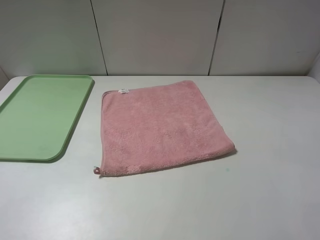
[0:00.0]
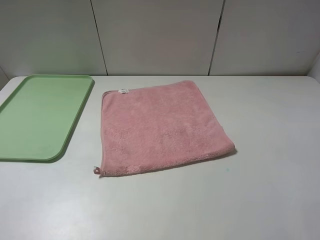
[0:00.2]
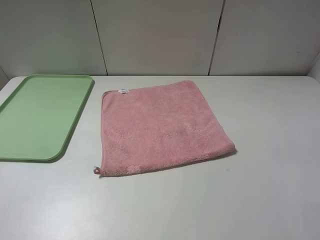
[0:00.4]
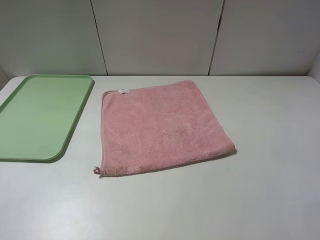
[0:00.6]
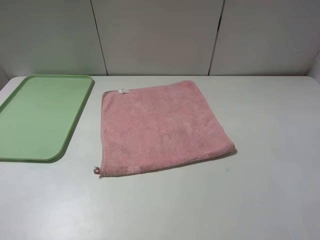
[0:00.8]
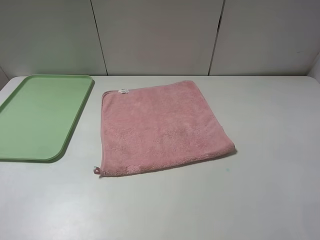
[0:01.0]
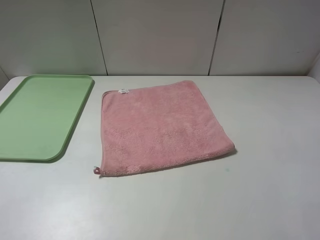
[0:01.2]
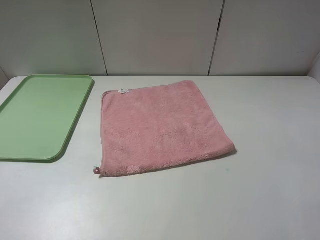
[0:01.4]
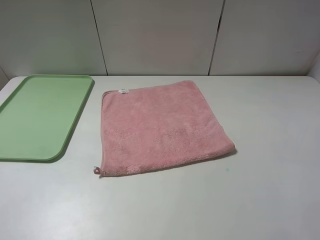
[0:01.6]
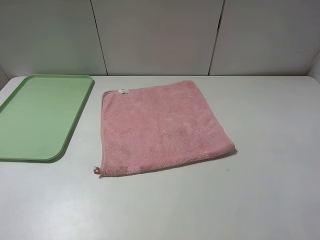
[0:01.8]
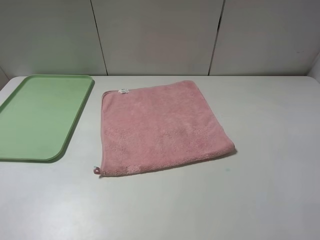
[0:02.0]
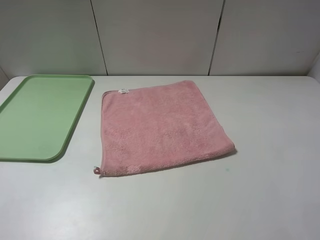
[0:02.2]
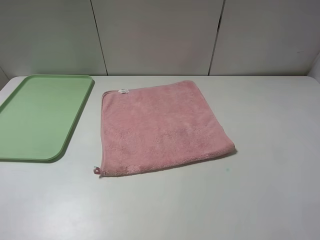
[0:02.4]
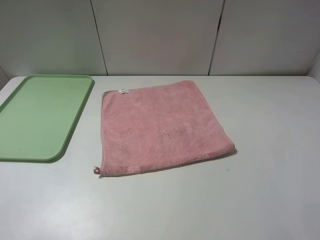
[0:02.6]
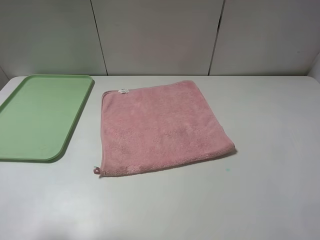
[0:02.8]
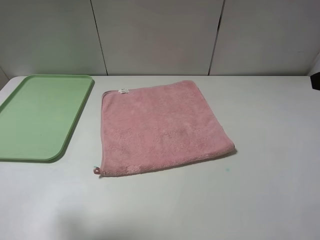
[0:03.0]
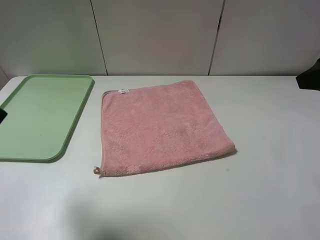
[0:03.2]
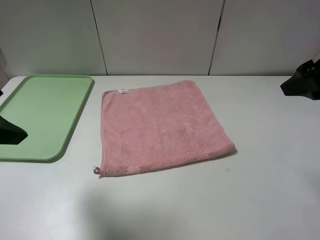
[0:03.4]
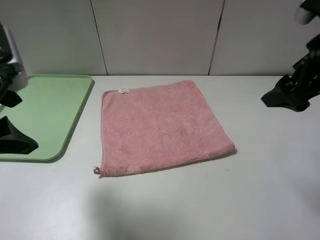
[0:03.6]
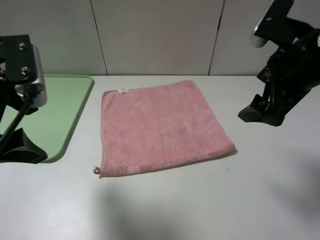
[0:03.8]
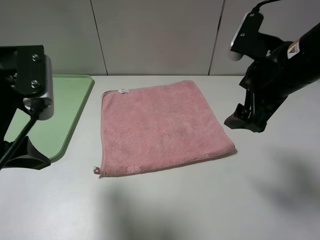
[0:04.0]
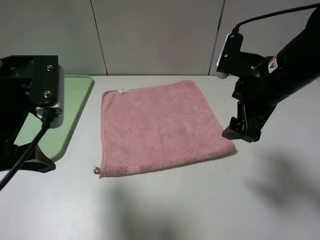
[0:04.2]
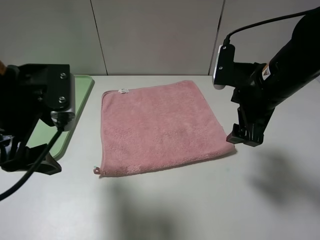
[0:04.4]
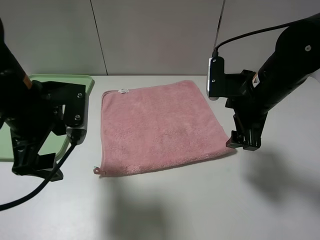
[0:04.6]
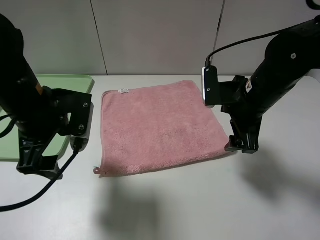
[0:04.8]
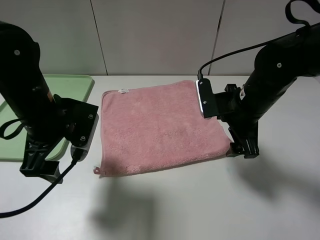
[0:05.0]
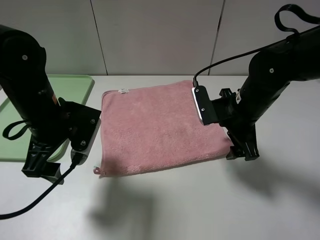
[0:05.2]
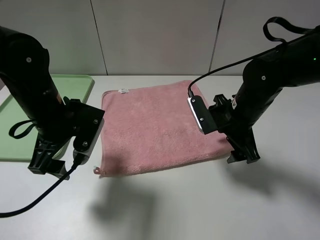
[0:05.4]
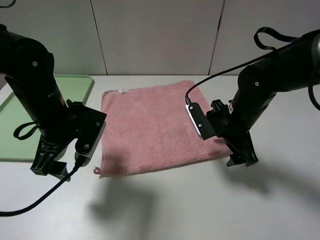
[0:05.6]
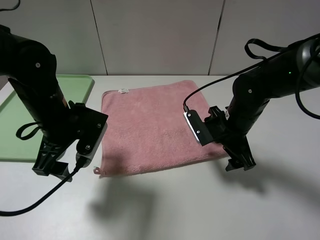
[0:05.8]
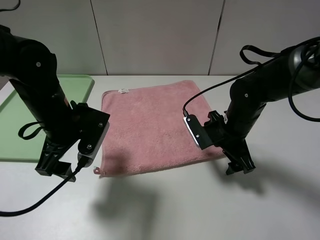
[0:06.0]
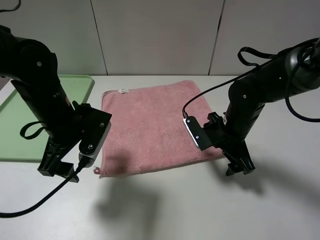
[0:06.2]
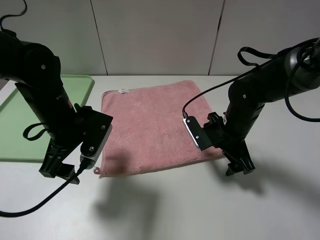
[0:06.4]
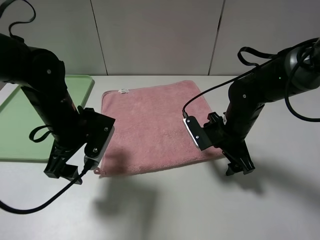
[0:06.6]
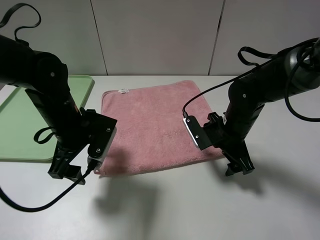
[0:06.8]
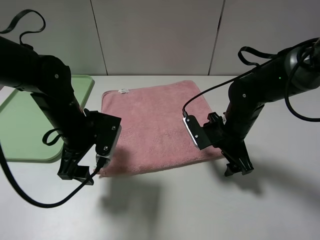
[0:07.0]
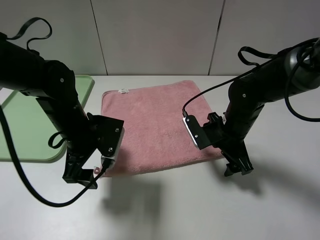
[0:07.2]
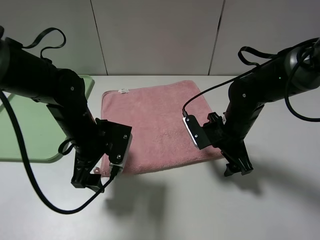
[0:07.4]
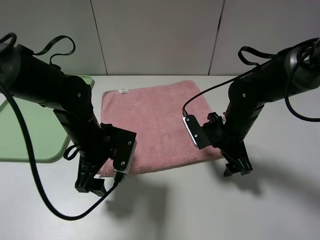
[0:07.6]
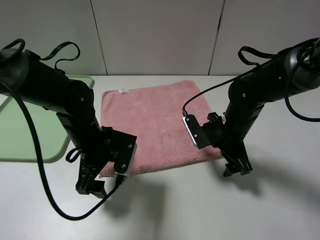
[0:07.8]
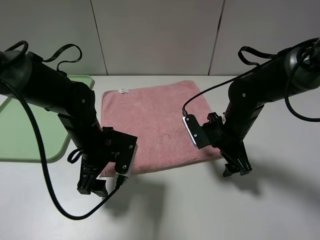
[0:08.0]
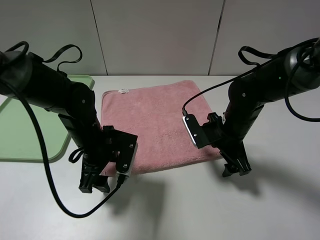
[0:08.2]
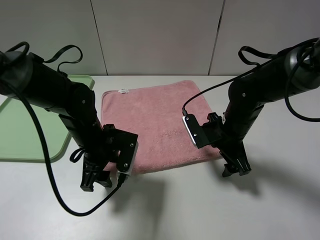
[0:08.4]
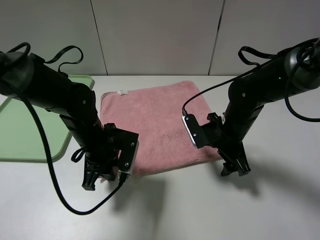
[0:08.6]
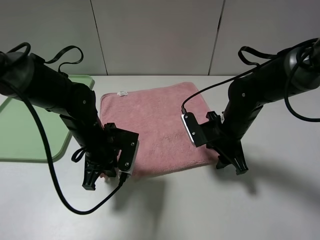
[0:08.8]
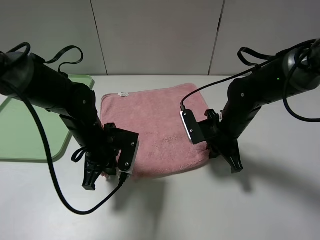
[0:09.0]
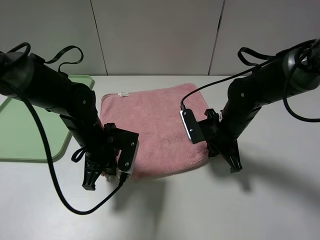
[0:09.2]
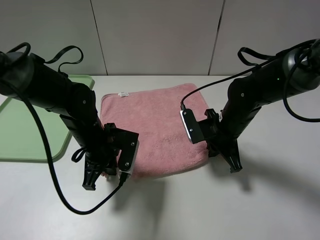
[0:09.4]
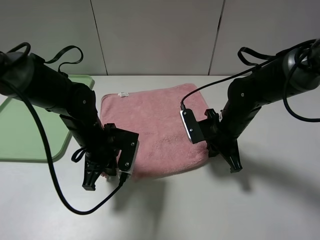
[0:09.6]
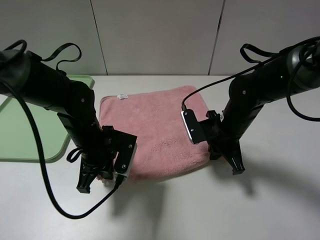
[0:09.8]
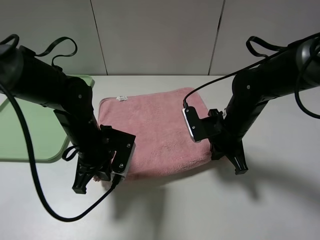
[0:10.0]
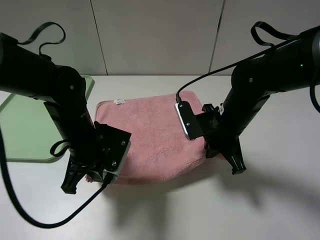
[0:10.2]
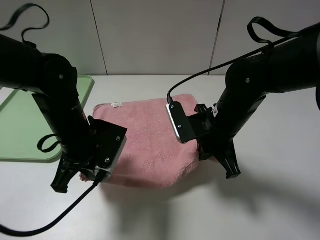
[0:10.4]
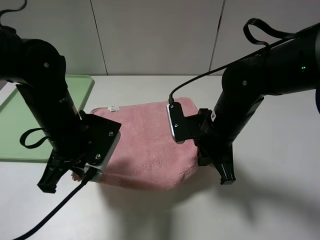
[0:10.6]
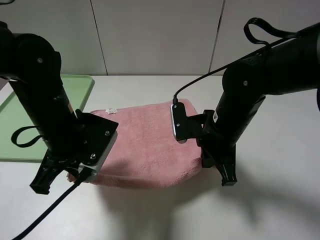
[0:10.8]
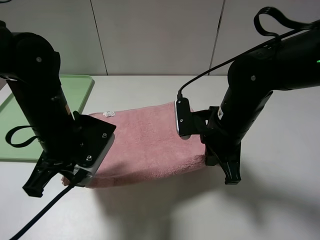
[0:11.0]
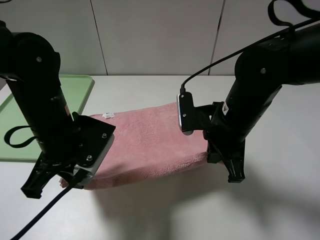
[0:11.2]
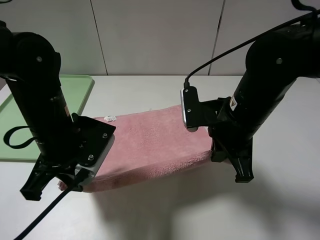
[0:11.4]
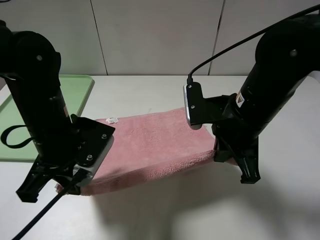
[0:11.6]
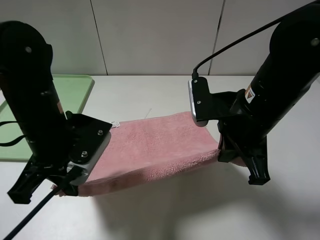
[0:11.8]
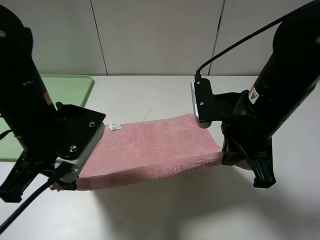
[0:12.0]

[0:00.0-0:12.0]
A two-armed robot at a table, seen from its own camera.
0:00.0 to 0:01.6: The two grippers keep their place.
0:01.6 to 0:03.0: The left gripper goes about 15 cm forward and upward; the right gripper shifts some 15 cm forward.
0:03.0 to 0:04.4: The left gripper travels to the right, downward and forward by some 15 cm, while the right gripper shifts some 15 cm downward, to the left and forward.
0:04.4 to 0:06.0: The grippers both shift downward by about 10 cm.
0:06.0 to 0:07.6: The left gripper goes some 5 cm downward.
0:07.6 to 0:09.0: The left gripper closes its fingers. The right gripper closes its fingers.
0:09.0 to 0:10.4: Both grippers move upward, some 5 cm.
0:10.4 to 0:12.0: Both grippers move upward, roughly 5 cm.

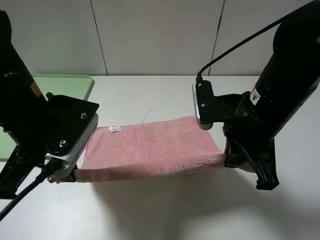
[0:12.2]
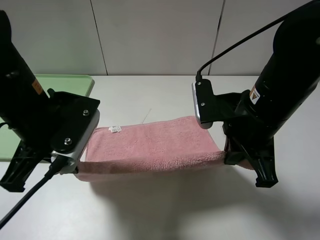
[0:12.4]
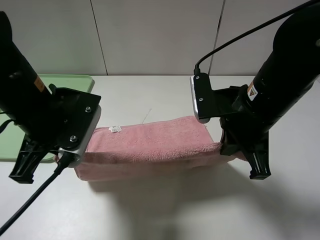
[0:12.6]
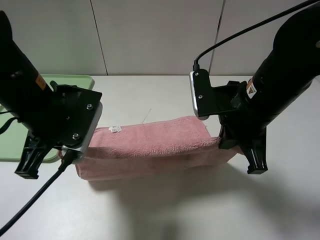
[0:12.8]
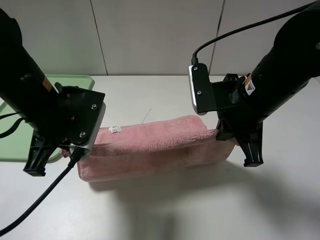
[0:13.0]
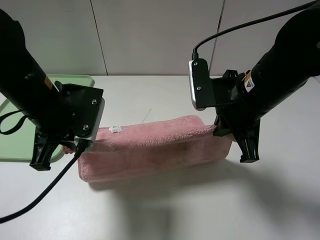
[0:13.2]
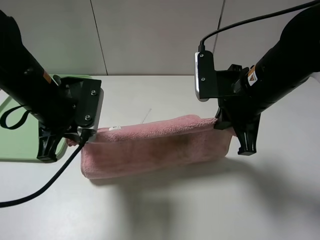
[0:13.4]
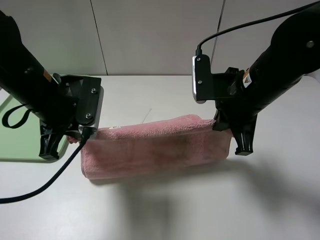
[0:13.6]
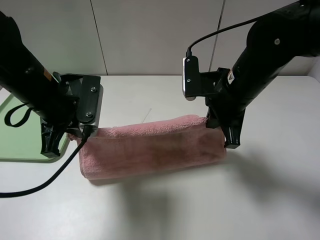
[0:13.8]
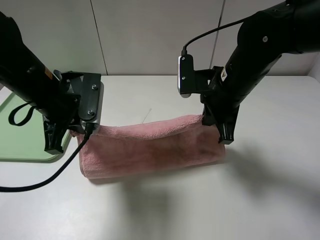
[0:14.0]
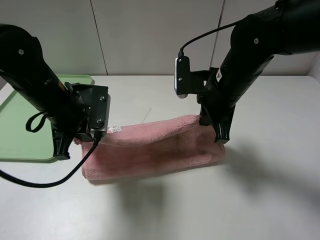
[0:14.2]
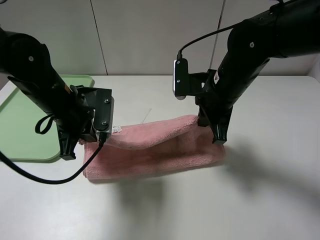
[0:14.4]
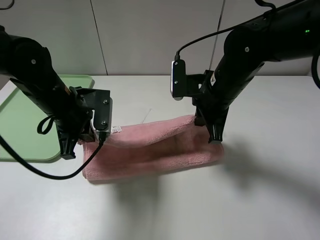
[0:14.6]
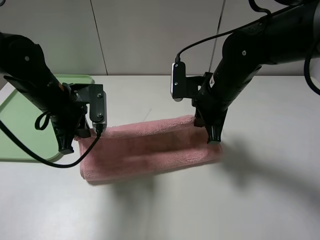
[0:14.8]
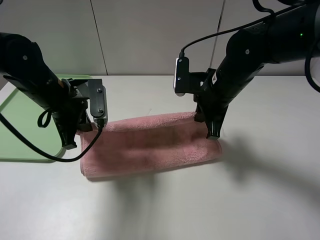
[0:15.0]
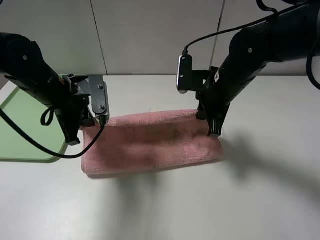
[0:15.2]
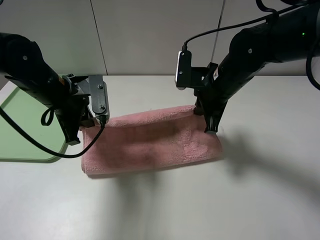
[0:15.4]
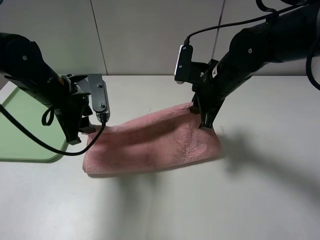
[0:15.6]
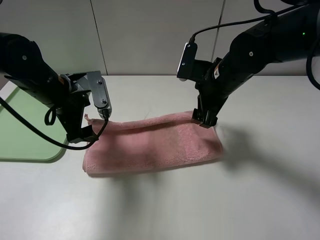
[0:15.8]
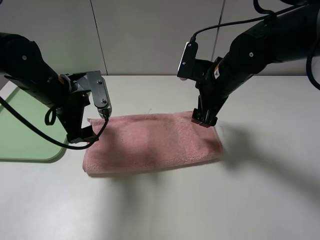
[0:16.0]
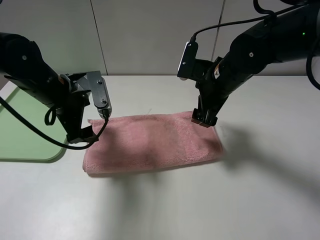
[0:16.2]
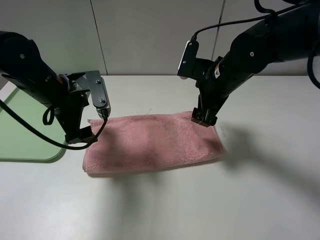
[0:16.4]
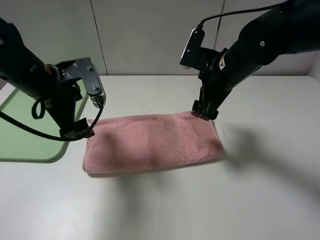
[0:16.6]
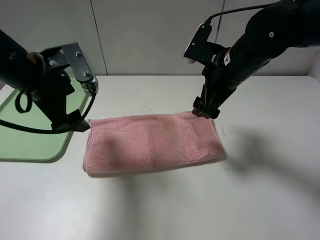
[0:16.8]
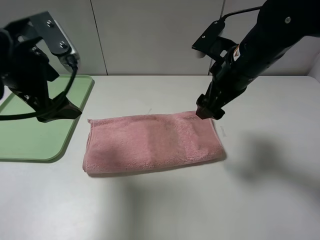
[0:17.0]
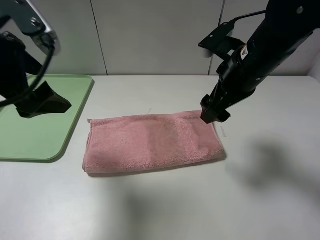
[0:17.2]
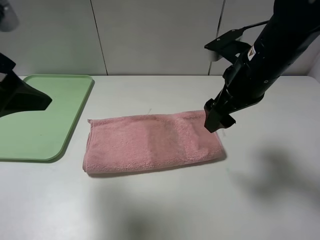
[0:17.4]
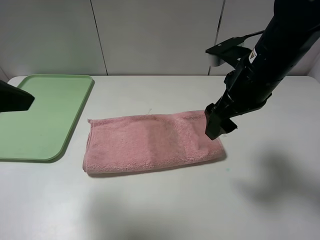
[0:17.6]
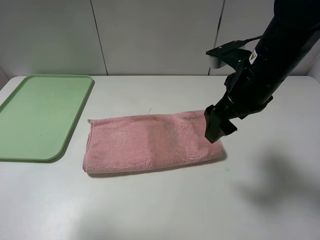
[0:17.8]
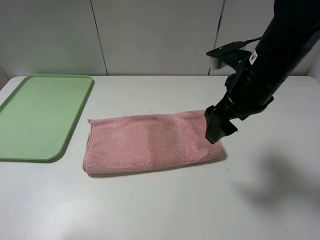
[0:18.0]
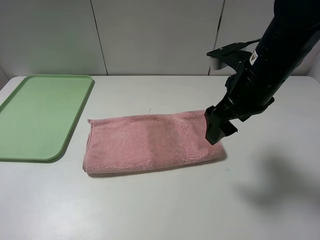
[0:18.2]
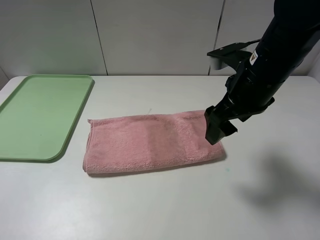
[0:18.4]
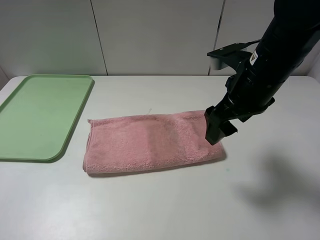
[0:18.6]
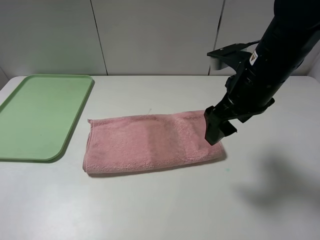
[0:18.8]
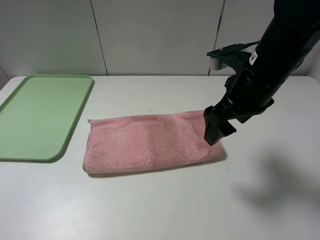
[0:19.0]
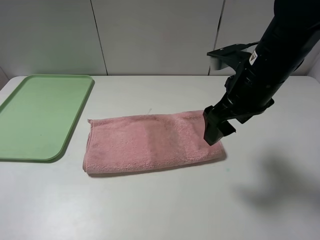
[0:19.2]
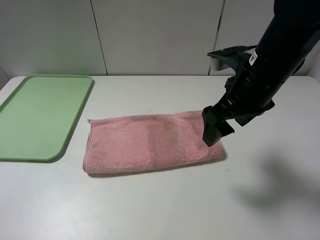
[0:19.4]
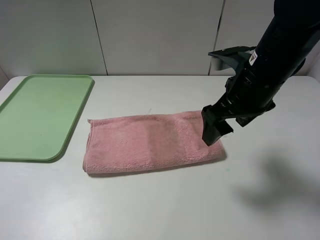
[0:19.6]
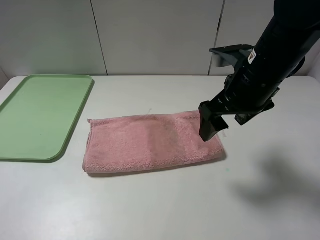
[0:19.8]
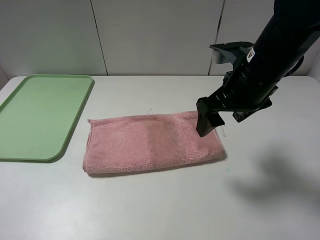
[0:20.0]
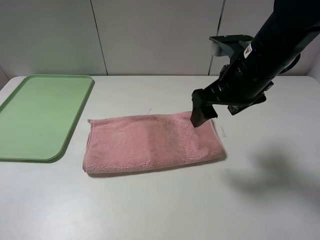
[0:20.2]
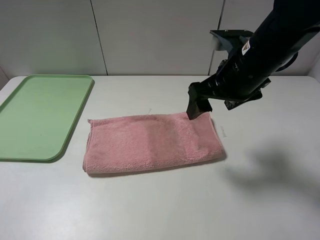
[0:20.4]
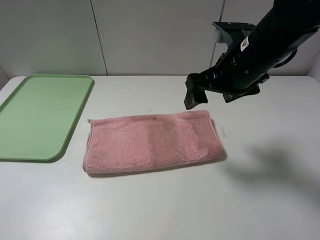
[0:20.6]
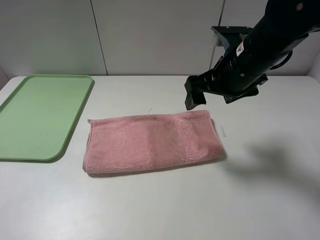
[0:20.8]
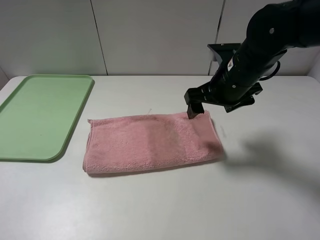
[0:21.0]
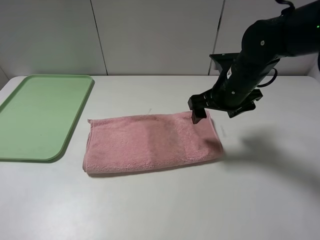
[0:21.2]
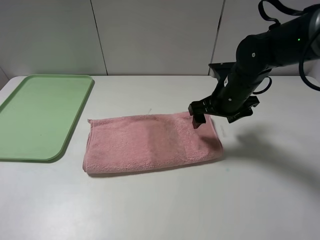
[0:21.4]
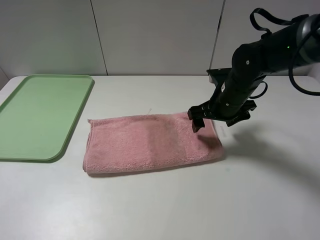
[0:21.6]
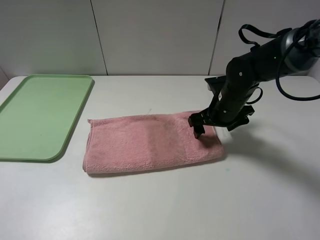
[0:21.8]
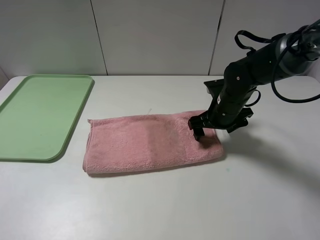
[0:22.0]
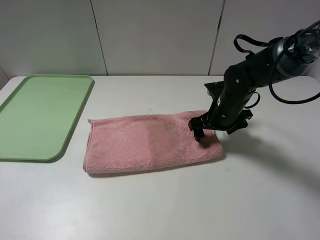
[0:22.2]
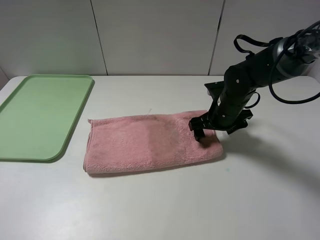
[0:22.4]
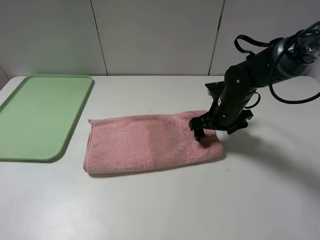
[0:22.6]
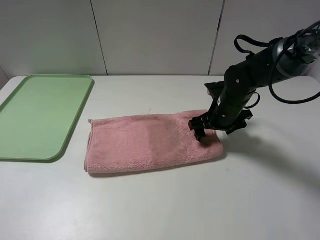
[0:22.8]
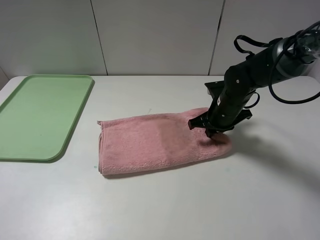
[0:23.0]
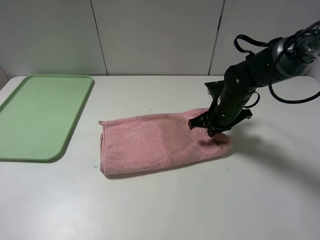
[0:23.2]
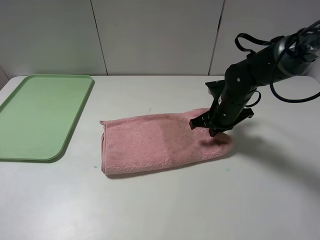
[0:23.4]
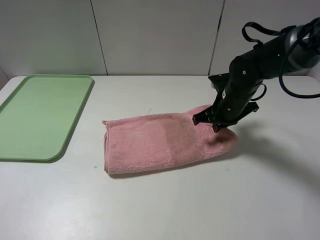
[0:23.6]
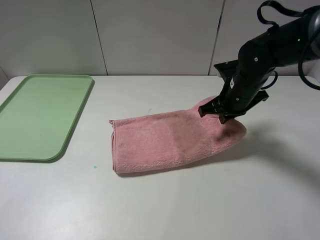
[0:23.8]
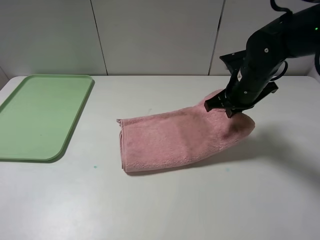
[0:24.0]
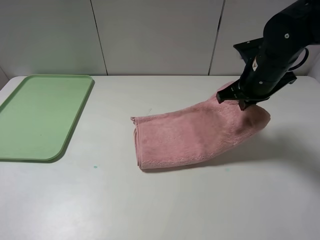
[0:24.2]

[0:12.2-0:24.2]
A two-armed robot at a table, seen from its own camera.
Step, 0:12.2 to 0:16.0: Fold the pink towel upwards.
0:12.2 to 0:13.8: Both grippers travel together forward, roughly 5 cm.
0:13.8 to 0:15.2: The right gripper moves about 5 cm, while the left gripper ends up some 5 cm from where it was.
0:15.2 to 0:16.6: The right gripper opens its fingers. Meanwhile the left gripper opens its fingers.
0:16.6 to 0:18.2: The left gripper is displaced backward, to the left and upward by about 30 cm. The right gripper travels backward by about 5 cm.
0:18.2 to 0:19.8: The grippers stay close to where they were, moving slightly.
0:19.8 to 0:21.2: The right gripper goes approximately 10 cm downward and forward.
0:21.2 to 0:22.6: The right gripper heads downward, covering about 10 cm.
0:22.6 to 0:24.2: The right gripper is displaced upward by approximately 10 cm, and closes up.
